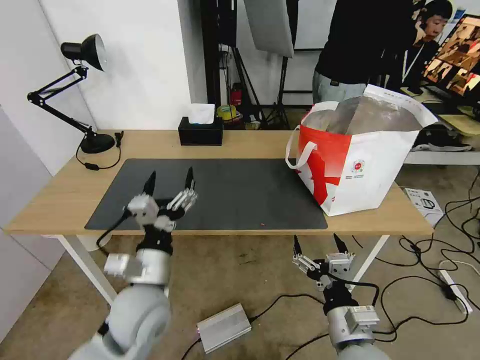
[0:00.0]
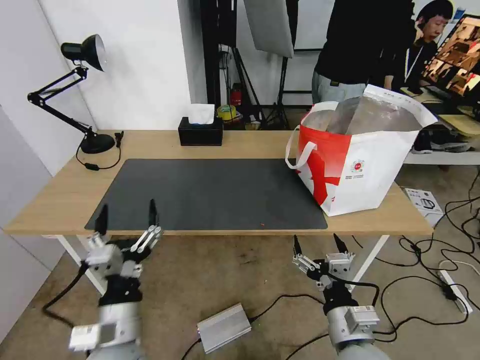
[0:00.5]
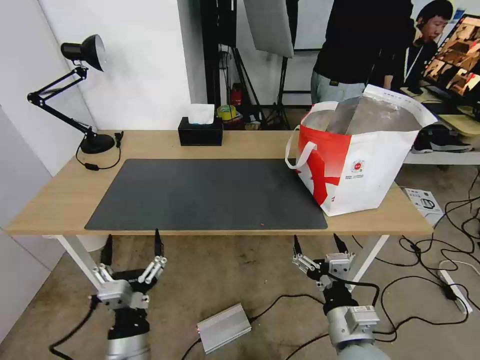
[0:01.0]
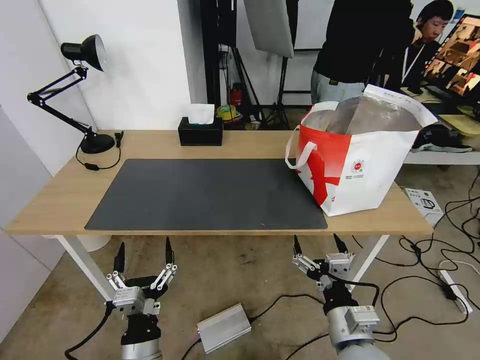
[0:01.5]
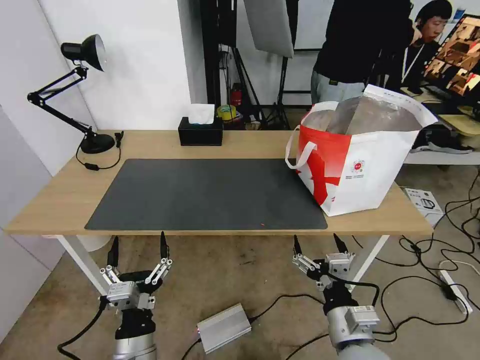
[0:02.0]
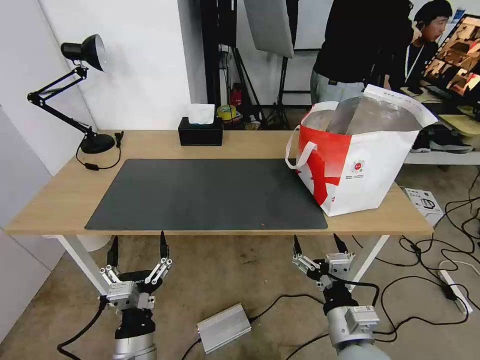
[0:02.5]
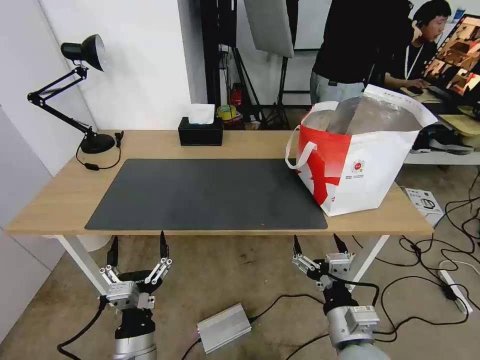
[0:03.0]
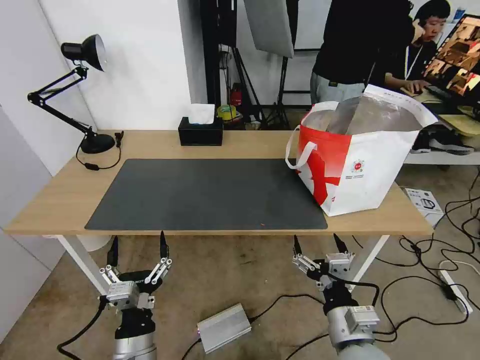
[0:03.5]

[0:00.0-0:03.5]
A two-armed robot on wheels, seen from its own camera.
Task of the whole recording: Pick up the trash from the table and place it into the takeout bag.
0:00.0 to 0:02.0: The left gripper shifts roughly 15 cm backward and downward.
0:02.0 to 0:03.5: Both grippers stay about where they are.
